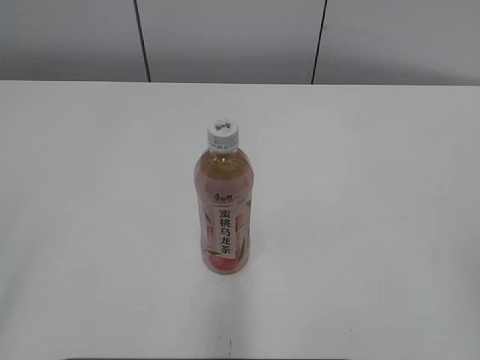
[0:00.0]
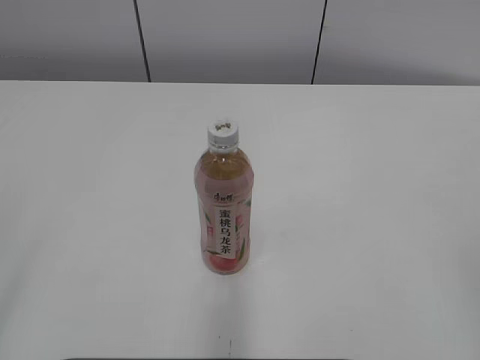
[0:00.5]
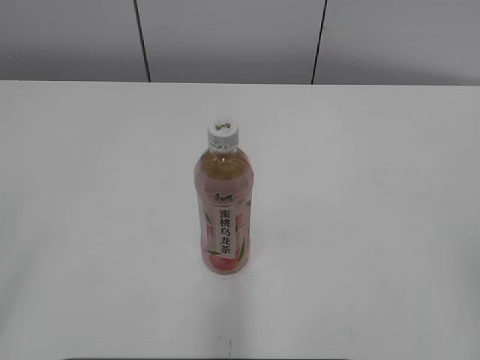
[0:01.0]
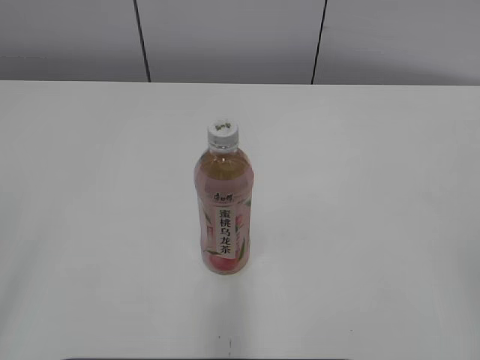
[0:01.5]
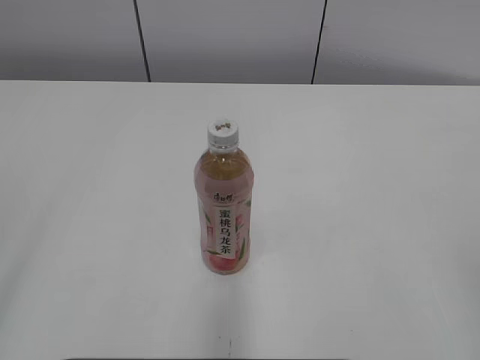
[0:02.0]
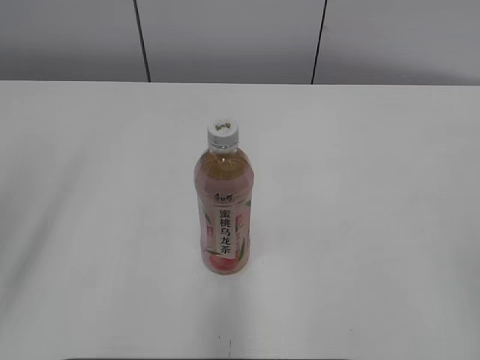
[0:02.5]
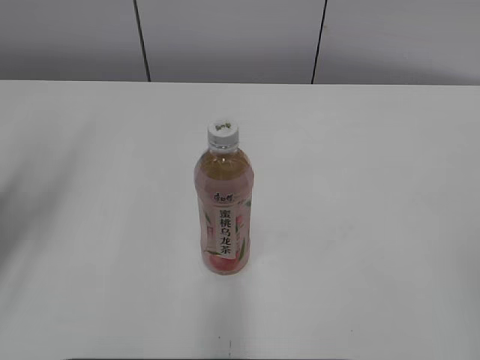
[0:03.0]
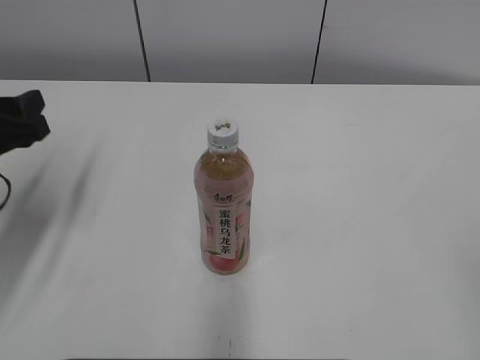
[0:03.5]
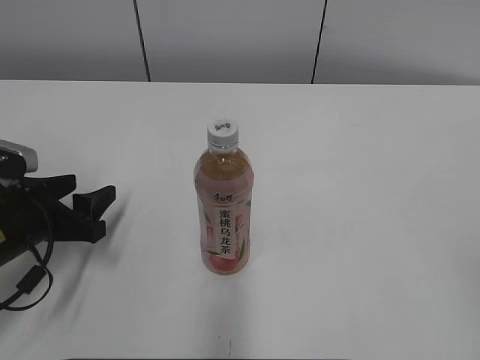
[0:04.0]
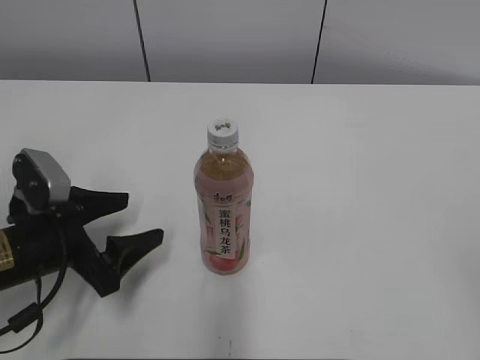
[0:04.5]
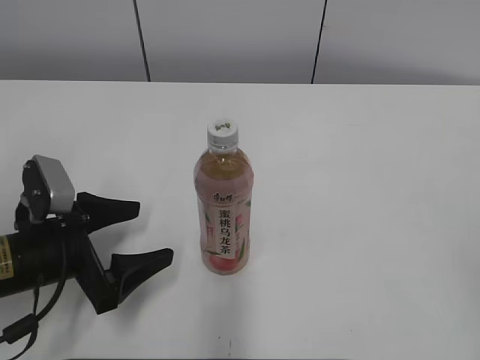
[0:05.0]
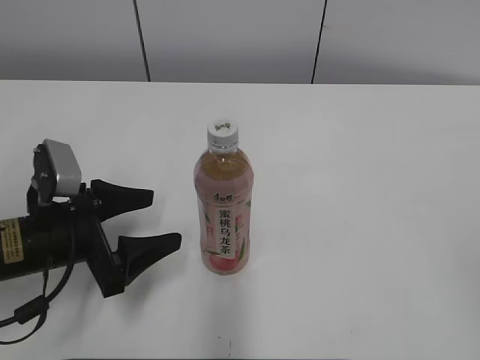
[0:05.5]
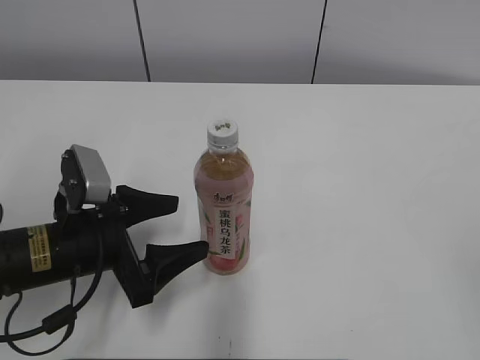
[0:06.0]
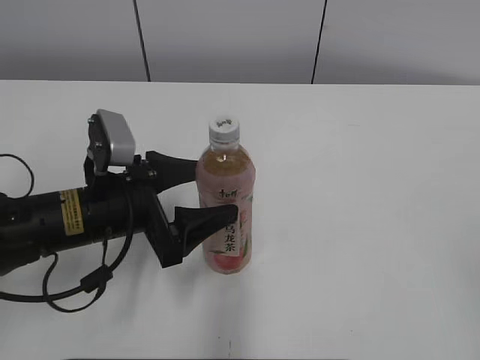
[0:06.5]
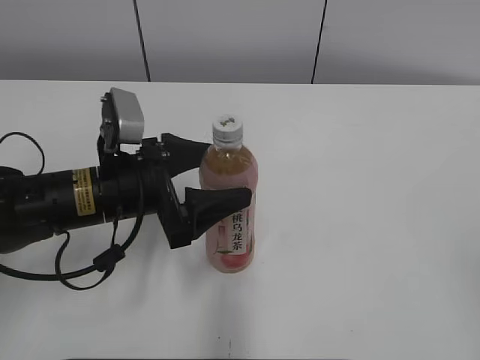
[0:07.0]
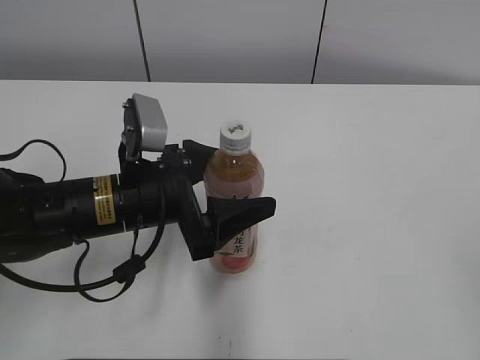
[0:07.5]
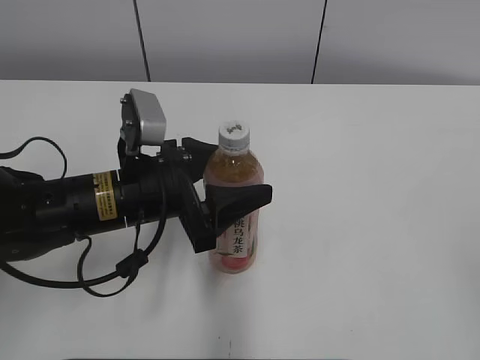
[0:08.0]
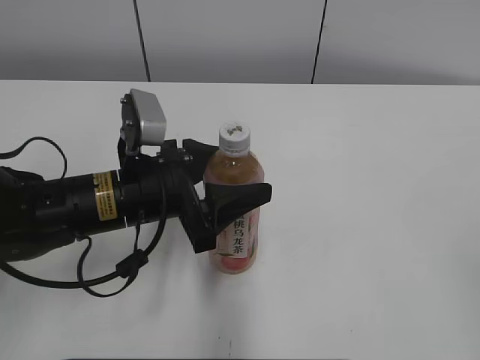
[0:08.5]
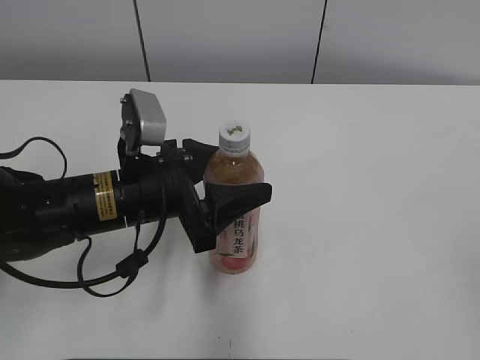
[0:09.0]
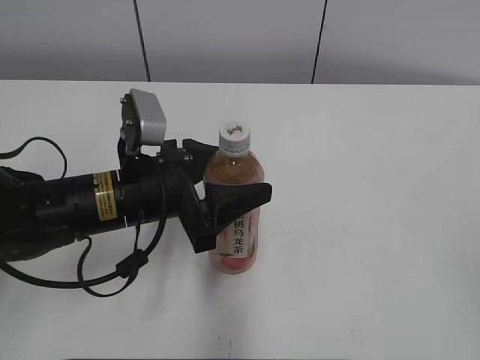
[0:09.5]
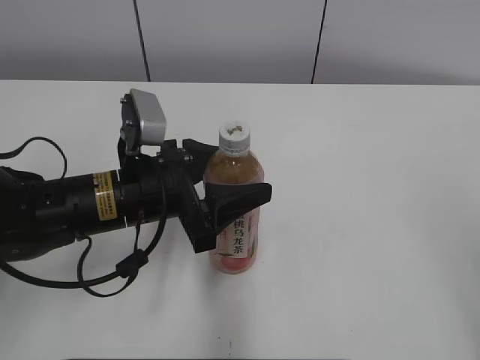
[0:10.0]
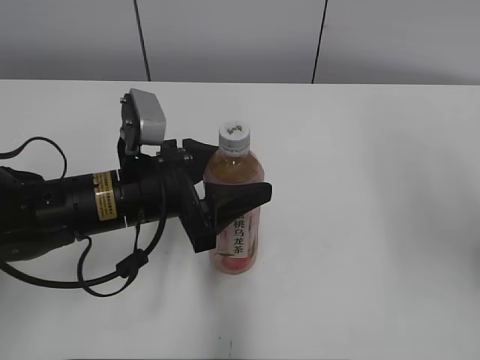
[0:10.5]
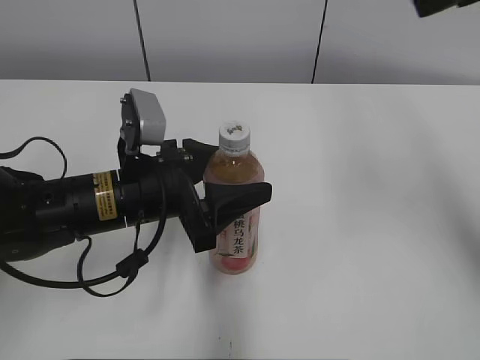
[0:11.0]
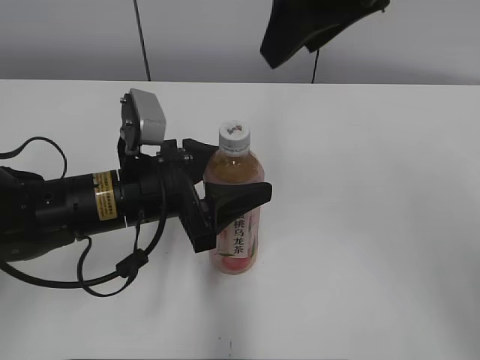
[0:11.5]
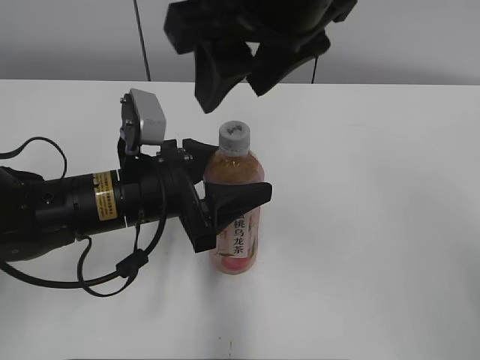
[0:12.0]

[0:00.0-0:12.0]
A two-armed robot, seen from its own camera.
Step, 0:00.0 to 0:08.0: Grab the Peach Oolong Tea with the left hand.
0:02.0 to 0:04.0: The left gripper moves forward and downward, some 35 cm, and closes up.
0:04.0 to 0:06.0: The left gripper moves to the right, roughly 5 cm, and opens.
0:06.0 to 0:08.0: The left gripper goes some 5 cm to the right, and closes its fingers.
0:10.0 to 0:12.0: The right gripper heads to the left and forward, covering roughly 35 cm.

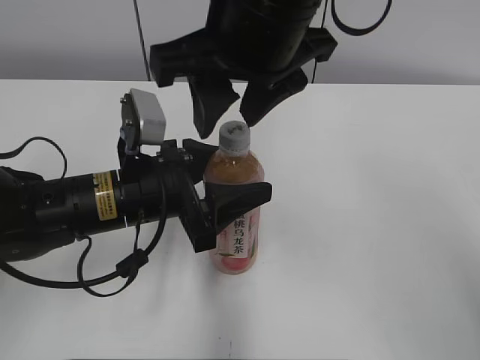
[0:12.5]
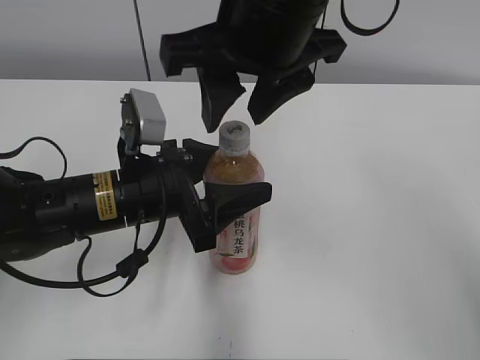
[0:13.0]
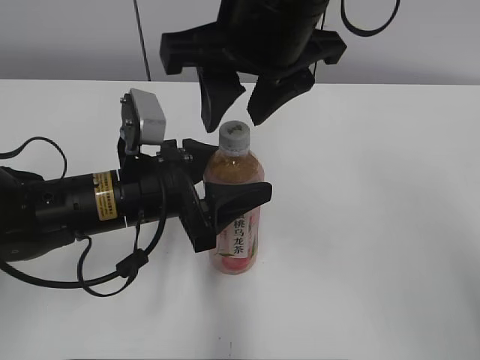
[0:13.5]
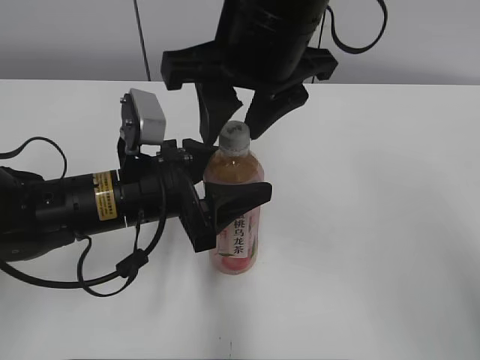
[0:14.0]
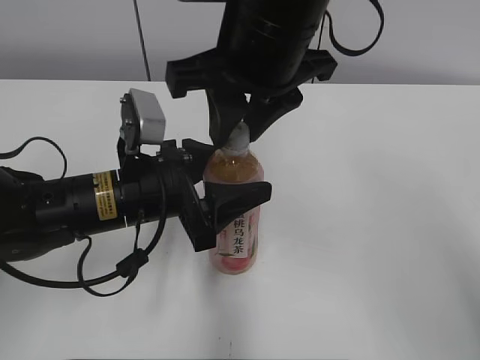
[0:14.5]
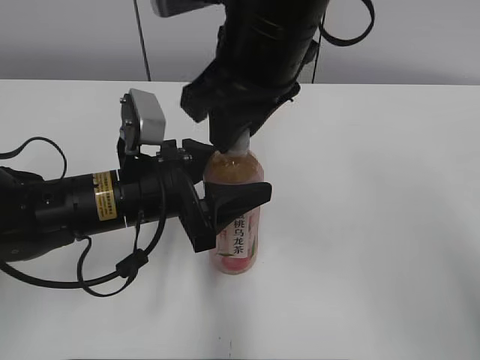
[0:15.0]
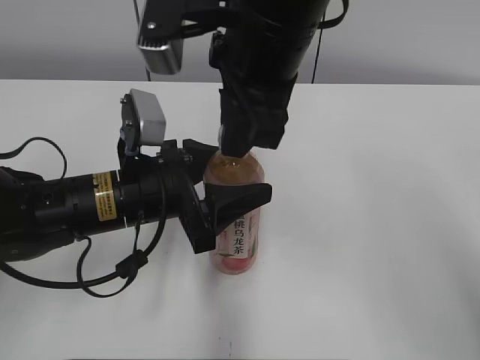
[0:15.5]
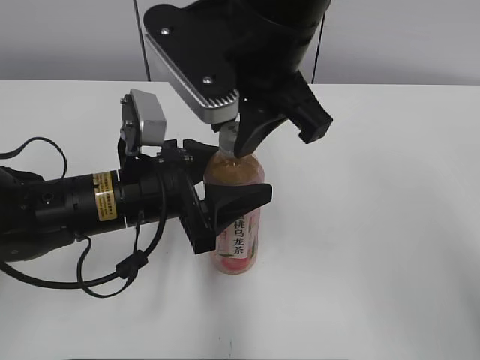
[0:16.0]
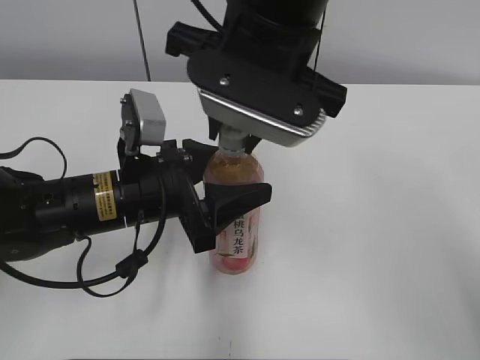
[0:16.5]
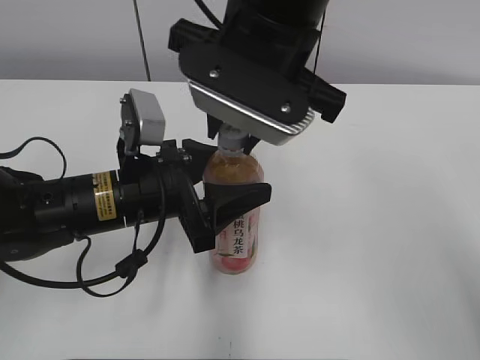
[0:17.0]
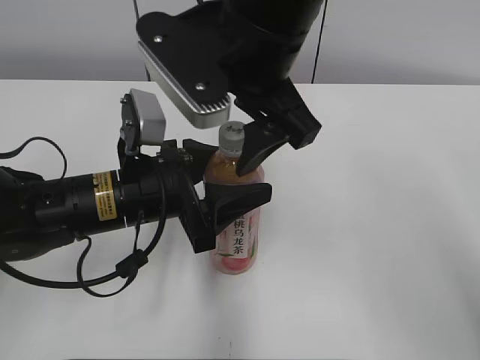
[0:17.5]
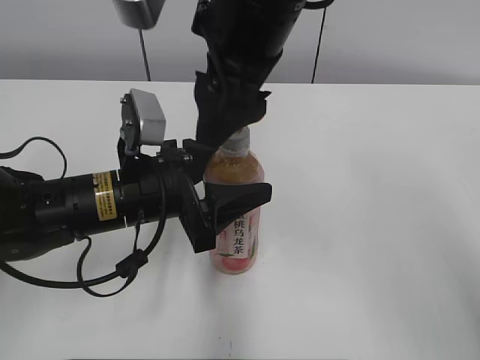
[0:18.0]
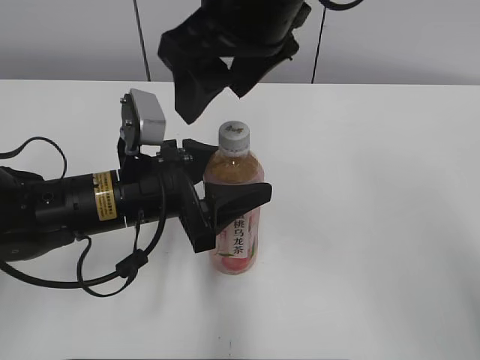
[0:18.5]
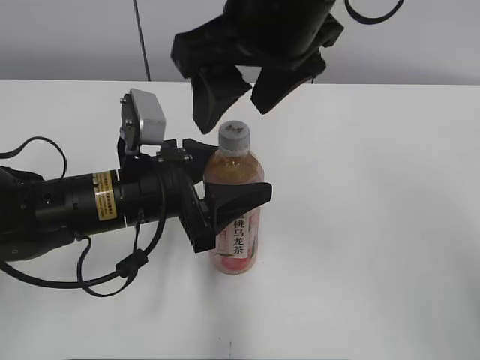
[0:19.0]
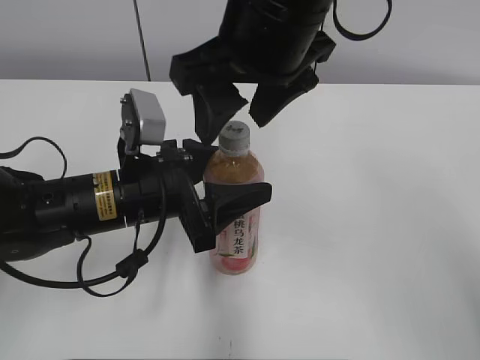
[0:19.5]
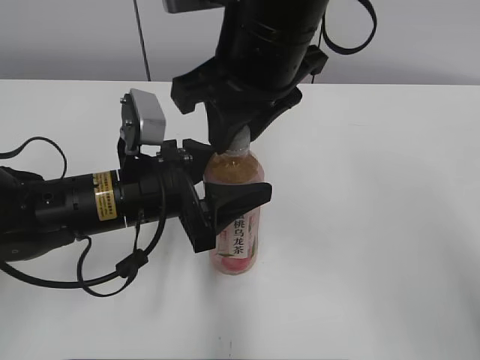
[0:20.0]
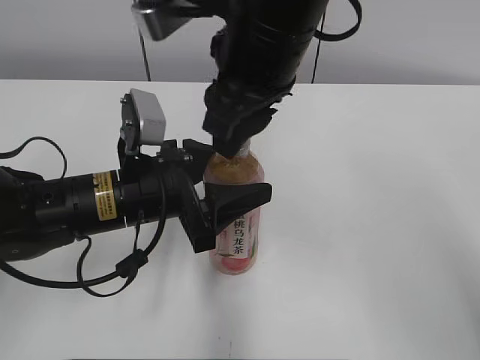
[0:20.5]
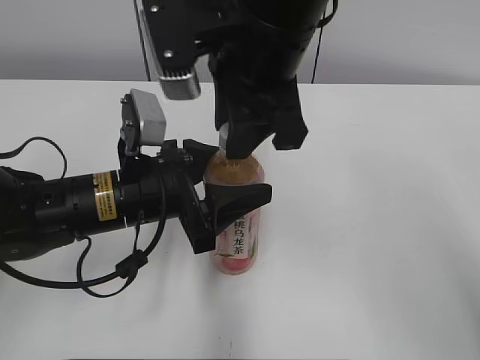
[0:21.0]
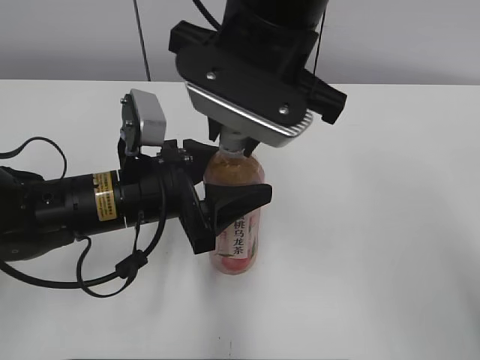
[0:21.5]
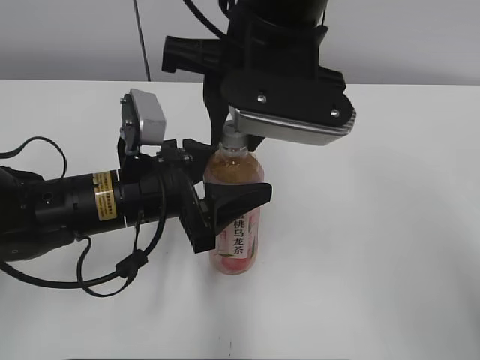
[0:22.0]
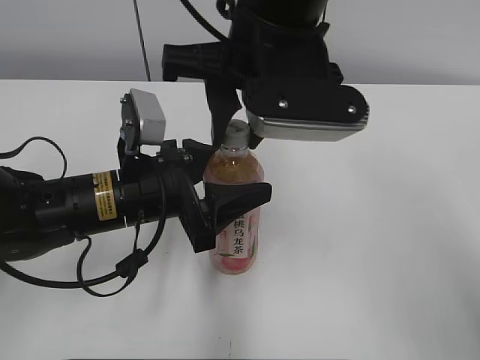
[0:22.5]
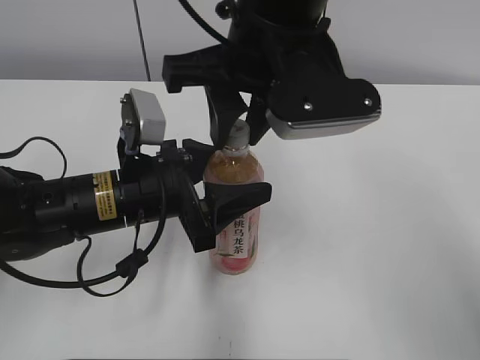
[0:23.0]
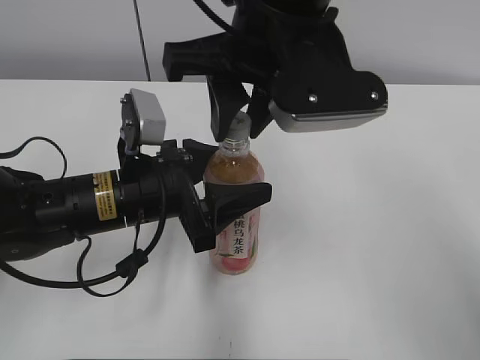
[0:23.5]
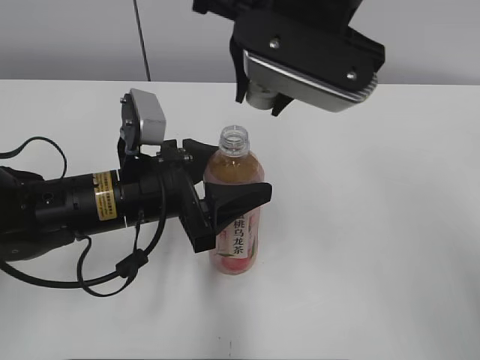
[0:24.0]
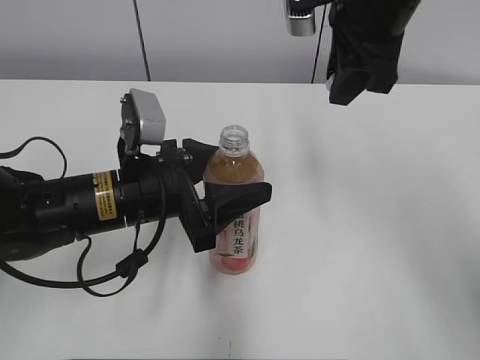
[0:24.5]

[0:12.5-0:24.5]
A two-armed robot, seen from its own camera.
0:12.5 to 0:14.5: The right gripper closes its fingers.
0:16.5 to 0:18.5: The right gripper opens.
0:18.5 to 0:20.5: The right gripper closes its fingers.
0:22.5 to 0:24.5: The right gripper travels to the right and forward by roughly 15 cm.

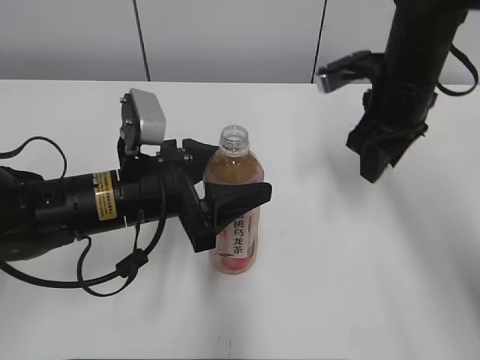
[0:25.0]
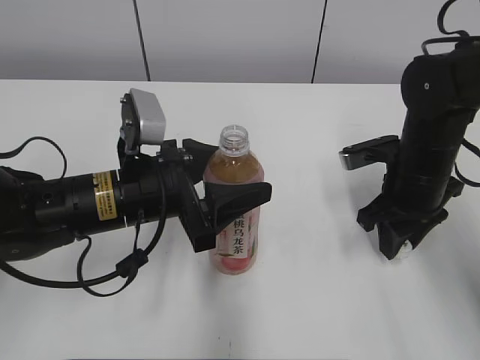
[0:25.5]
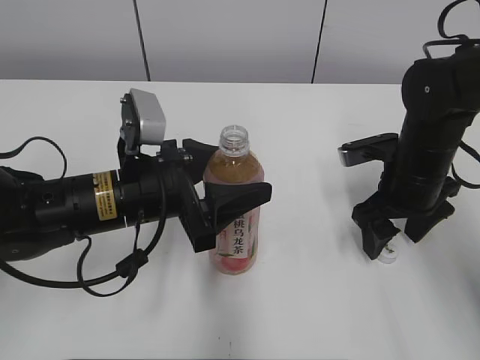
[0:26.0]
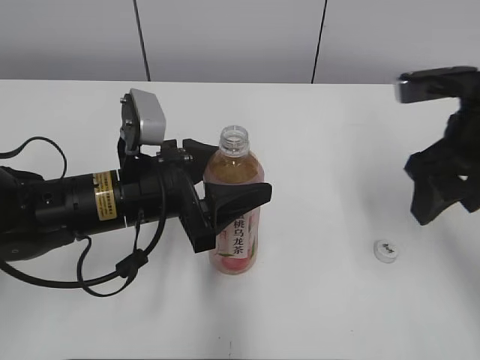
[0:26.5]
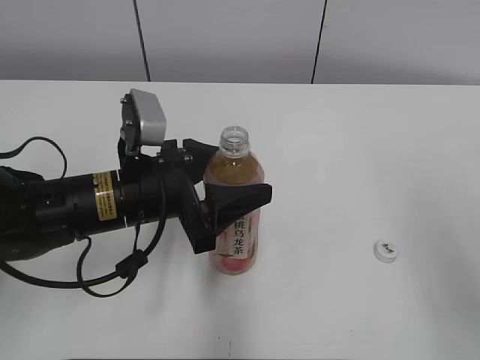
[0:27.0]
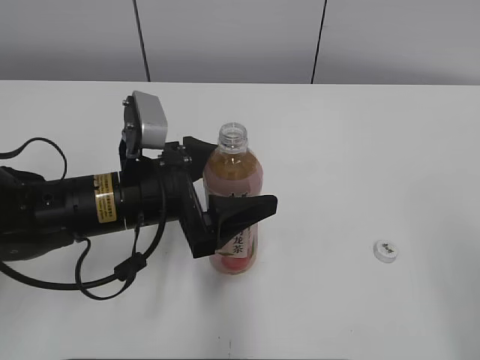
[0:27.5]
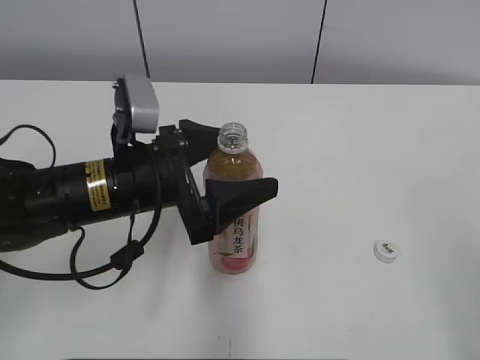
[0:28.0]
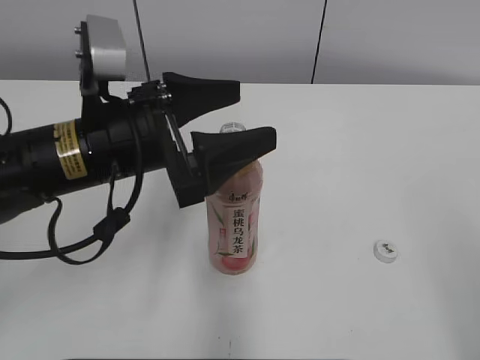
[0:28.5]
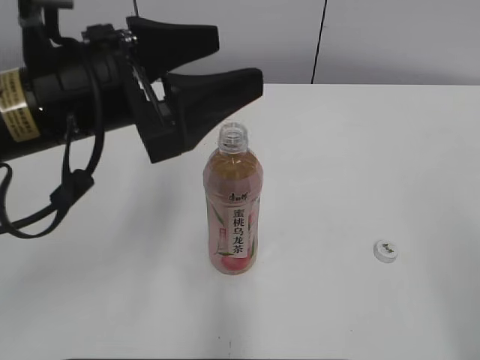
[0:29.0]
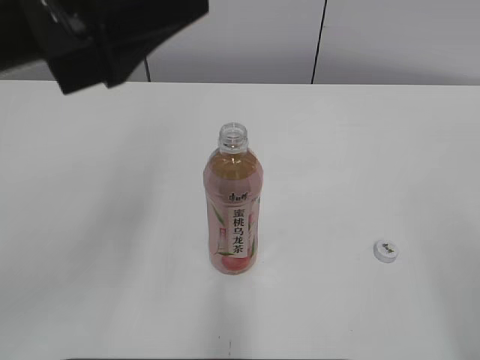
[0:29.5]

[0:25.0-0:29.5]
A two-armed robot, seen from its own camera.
0:25.0 to 0:27.0: The right gripper goes approximately 25 cm backward, and opens.
0:27.0 to 0:29.5: The left gripper heads upward, covering roughly 20 cm, and opens. The right gripper is displaced backward by about 10 cm.
